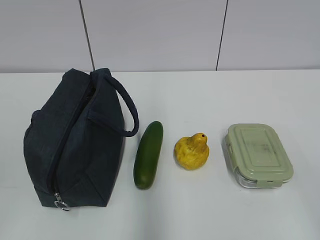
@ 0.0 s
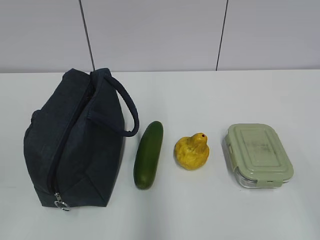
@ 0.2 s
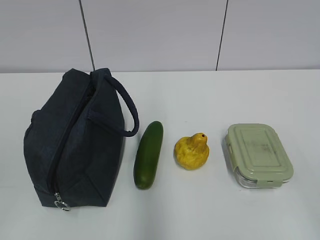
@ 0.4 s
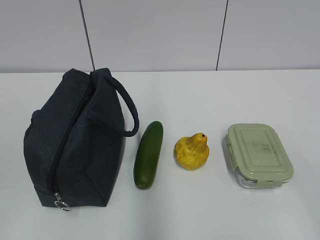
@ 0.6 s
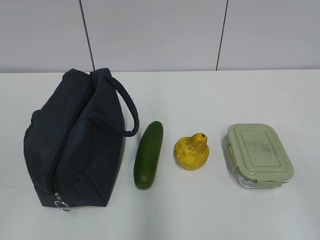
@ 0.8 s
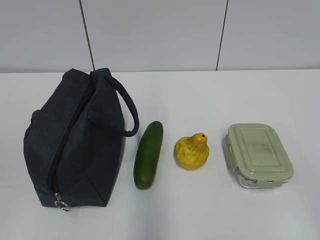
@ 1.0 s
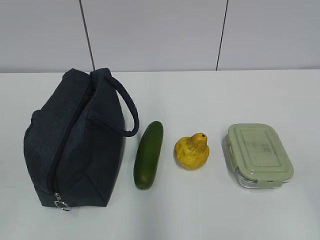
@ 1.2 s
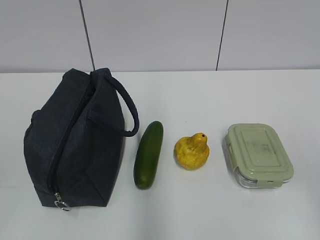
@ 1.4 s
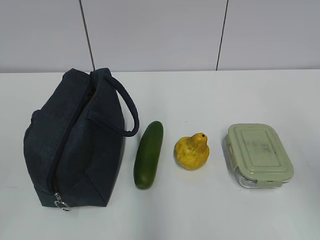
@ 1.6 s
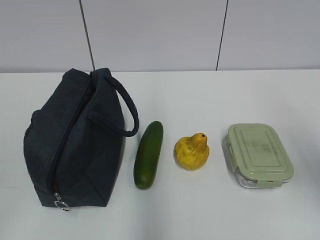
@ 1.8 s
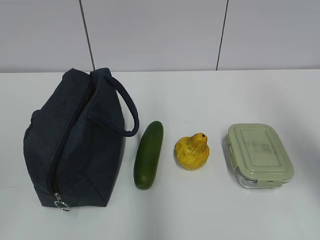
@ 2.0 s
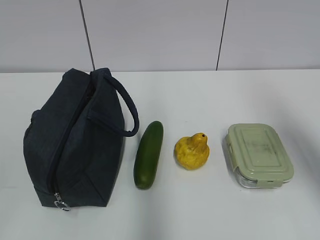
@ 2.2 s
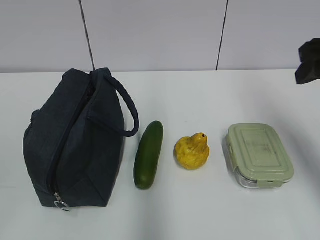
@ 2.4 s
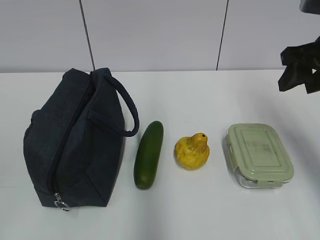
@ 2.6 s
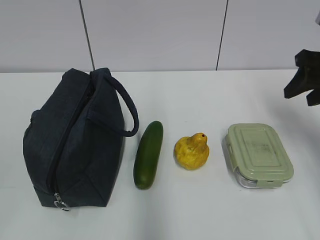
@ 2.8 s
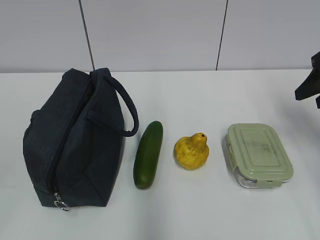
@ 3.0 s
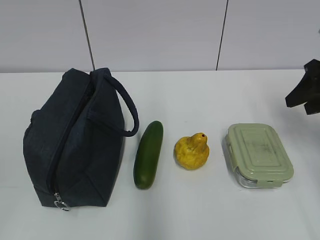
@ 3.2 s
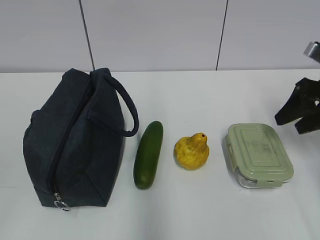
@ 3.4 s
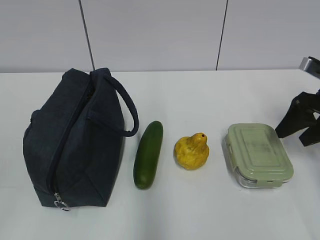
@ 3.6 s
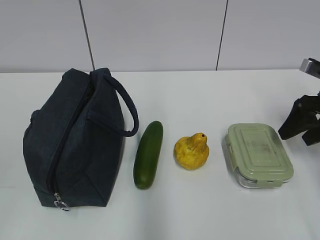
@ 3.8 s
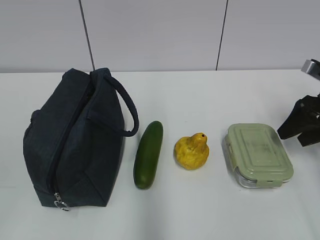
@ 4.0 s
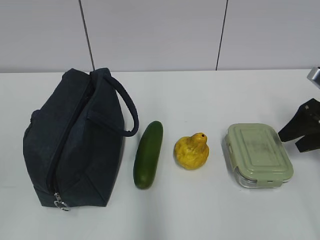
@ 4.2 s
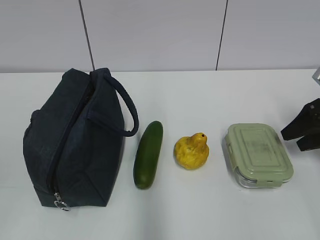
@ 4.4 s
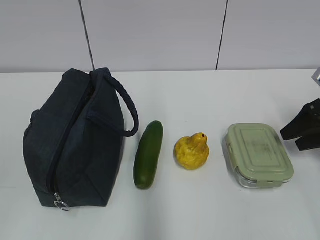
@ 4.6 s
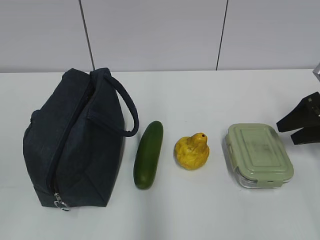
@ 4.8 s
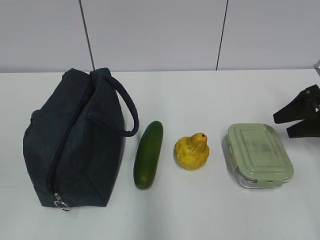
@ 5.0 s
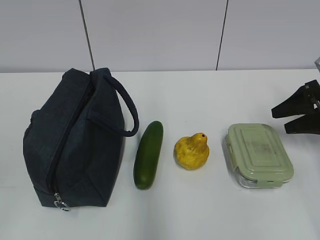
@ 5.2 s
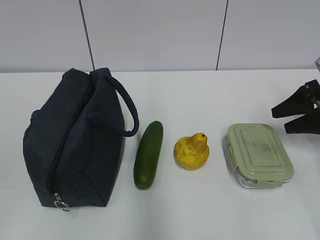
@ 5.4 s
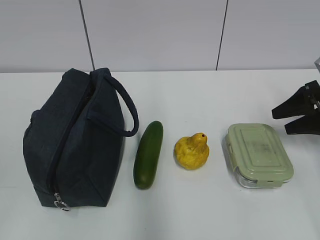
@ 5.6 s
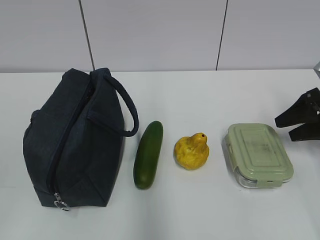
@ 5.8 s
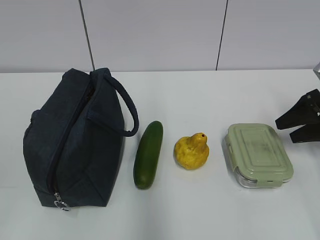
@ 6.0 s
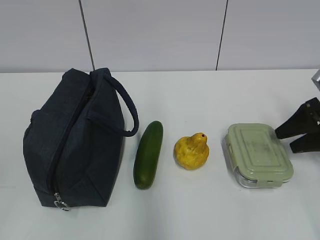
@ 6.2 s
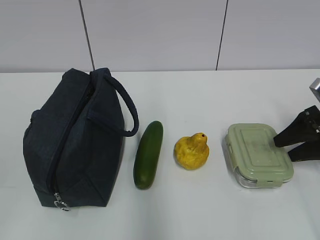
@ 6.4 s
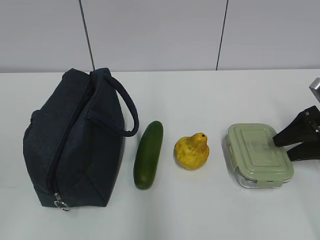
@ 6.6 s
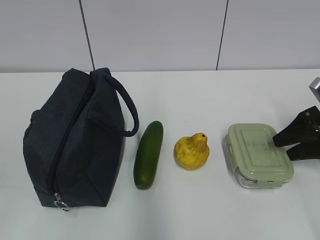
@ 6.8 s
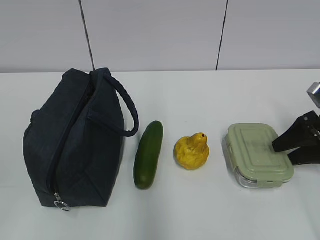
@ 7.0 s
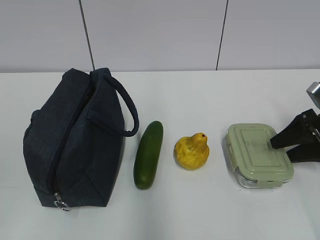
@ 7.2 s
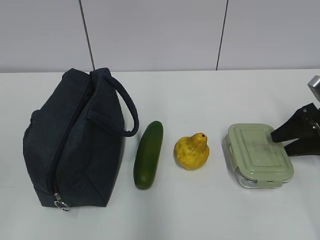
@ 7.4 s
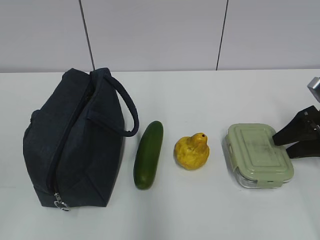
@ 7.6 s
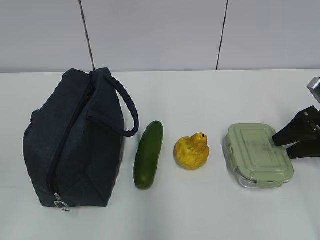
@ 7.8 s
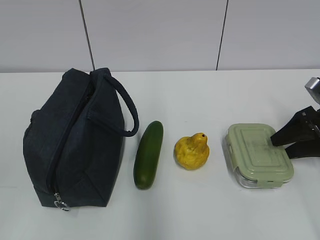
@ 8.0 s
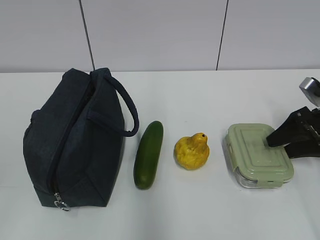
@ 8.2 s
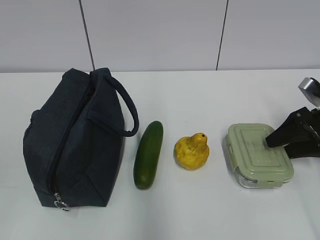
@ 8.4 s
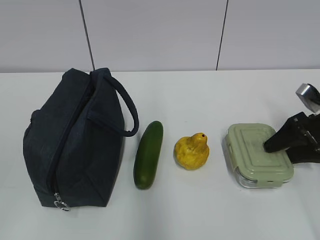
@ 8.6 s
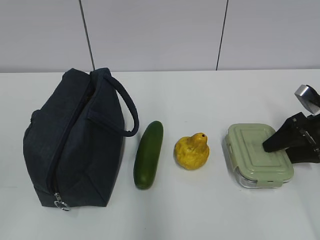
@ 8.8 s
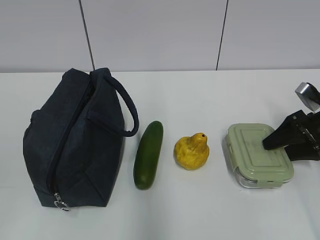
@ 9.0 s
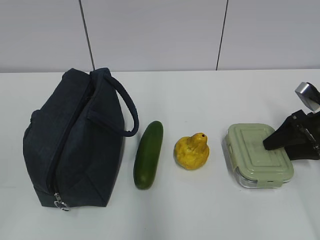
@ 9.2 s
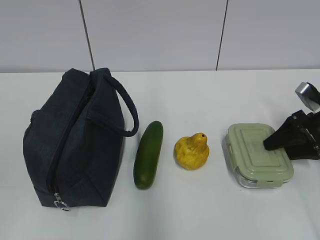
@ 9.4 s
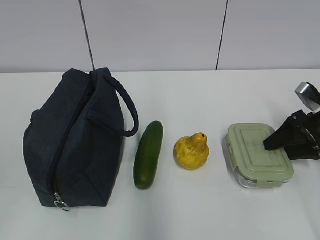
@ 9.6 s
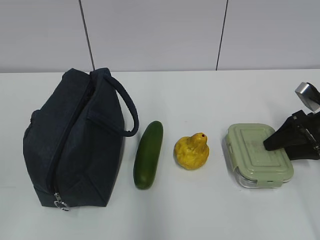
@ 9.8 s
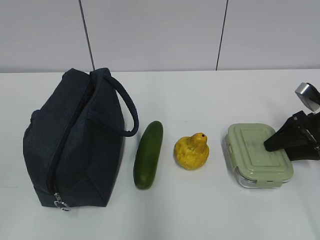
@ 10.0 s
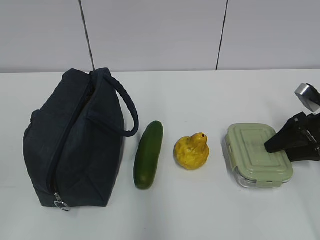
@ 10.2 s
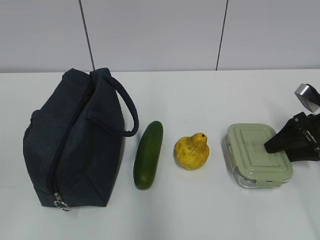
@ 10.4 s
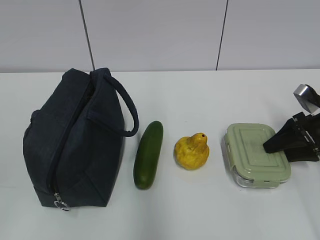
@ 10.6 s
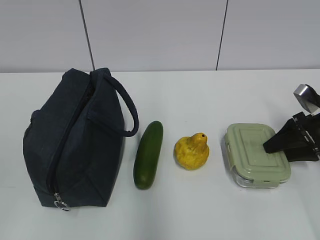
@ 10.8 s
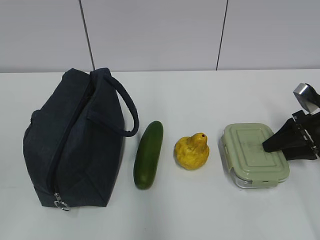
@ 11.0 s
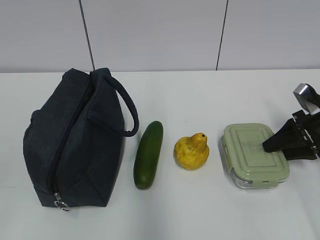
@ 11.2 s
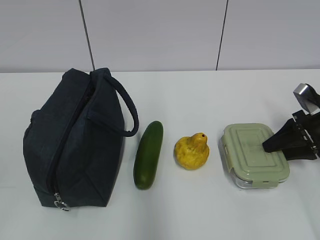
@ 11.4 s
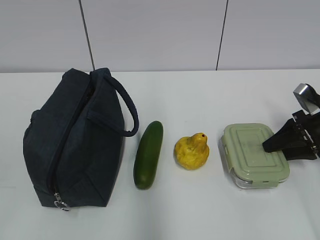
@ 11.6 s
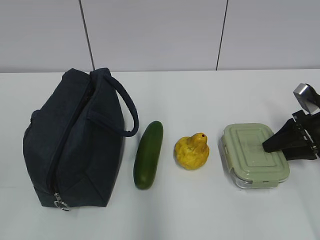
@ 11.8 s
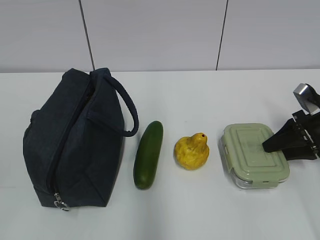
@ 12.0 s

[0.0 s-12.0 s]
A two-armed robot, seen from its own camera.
1.6 to 3.0 s: The right gripper shifts approximately 25 cm forward.
3.0 to 4.4 s: The right gripper travels downward by approximately 10 cm.
4.4 to 9.0 s: The grippers stay close to where they were, moving slightly.
9.0 to 12.0 s: Neither gripper changes place.

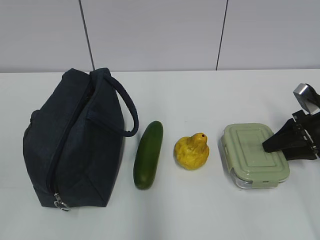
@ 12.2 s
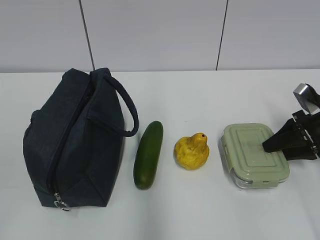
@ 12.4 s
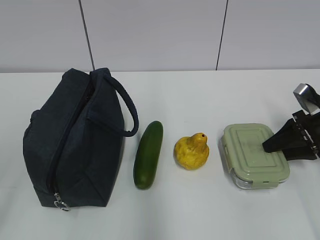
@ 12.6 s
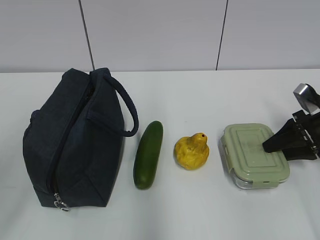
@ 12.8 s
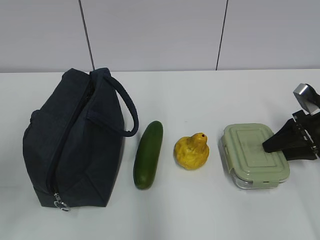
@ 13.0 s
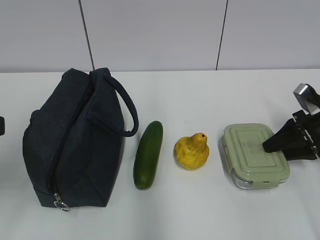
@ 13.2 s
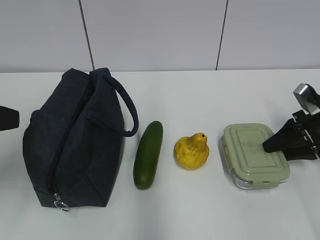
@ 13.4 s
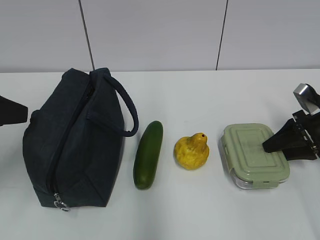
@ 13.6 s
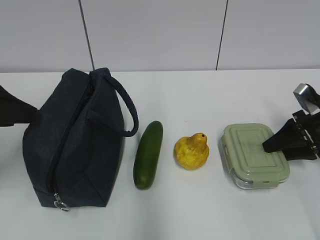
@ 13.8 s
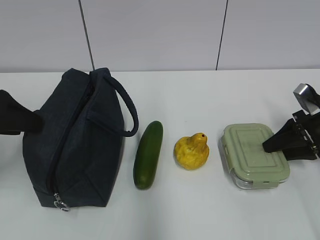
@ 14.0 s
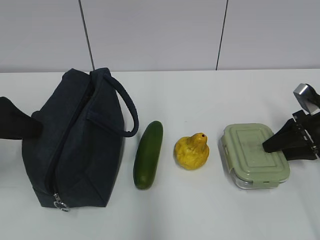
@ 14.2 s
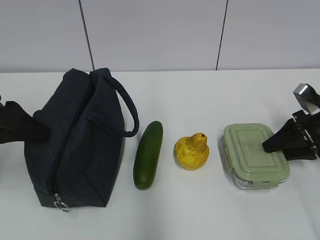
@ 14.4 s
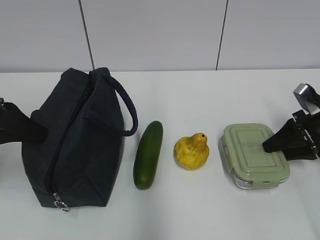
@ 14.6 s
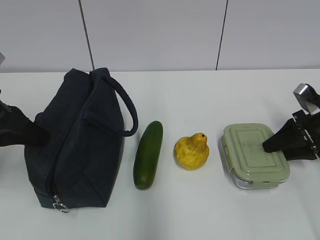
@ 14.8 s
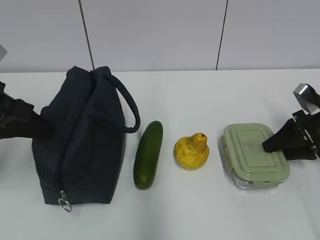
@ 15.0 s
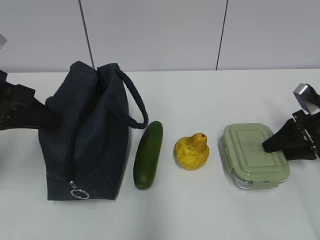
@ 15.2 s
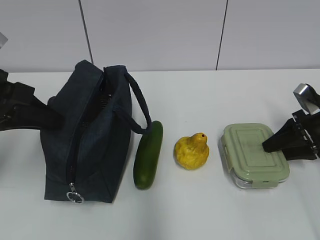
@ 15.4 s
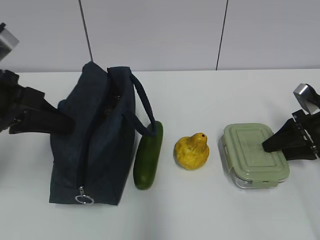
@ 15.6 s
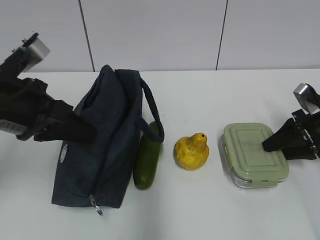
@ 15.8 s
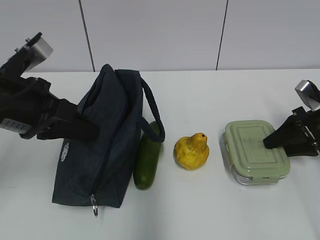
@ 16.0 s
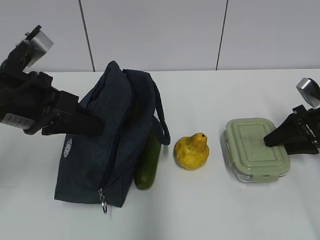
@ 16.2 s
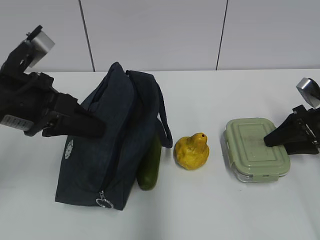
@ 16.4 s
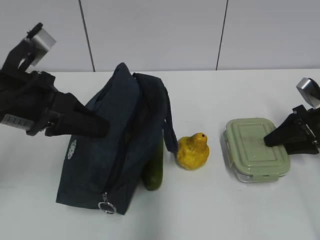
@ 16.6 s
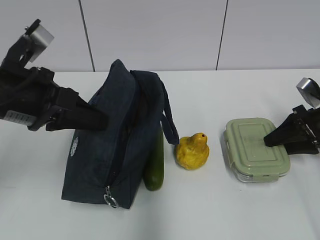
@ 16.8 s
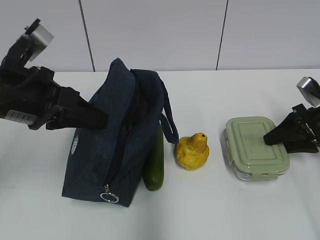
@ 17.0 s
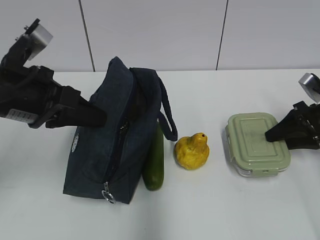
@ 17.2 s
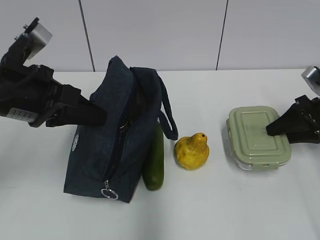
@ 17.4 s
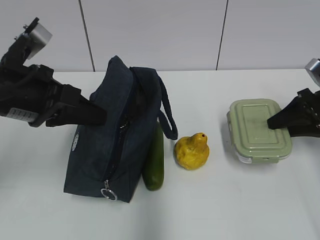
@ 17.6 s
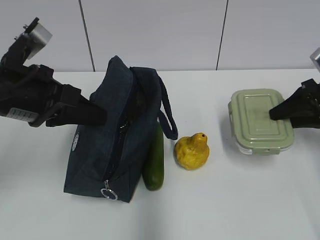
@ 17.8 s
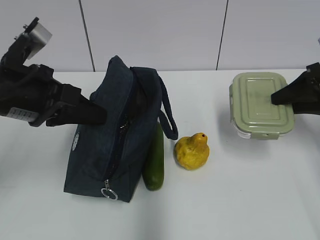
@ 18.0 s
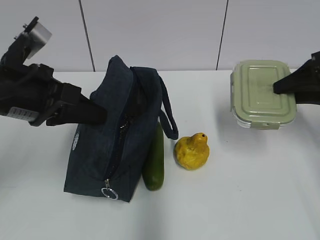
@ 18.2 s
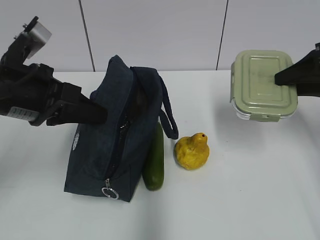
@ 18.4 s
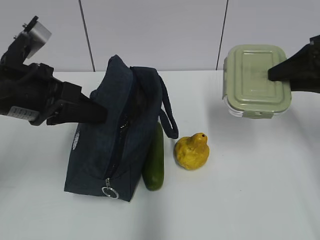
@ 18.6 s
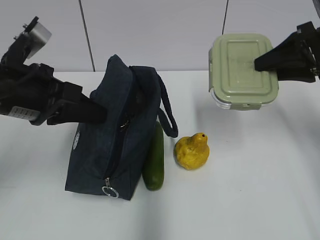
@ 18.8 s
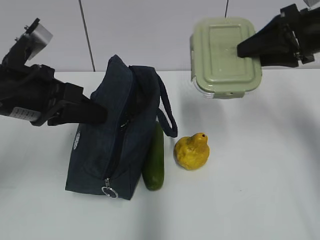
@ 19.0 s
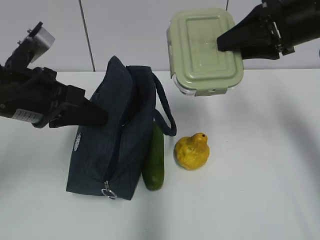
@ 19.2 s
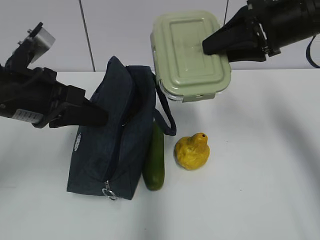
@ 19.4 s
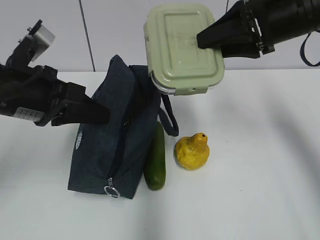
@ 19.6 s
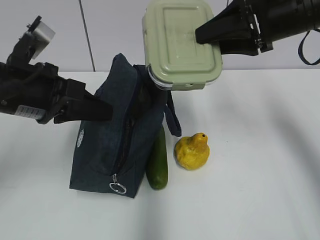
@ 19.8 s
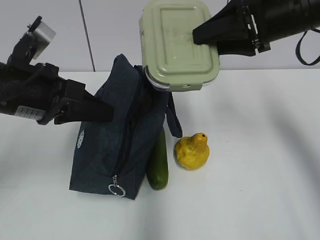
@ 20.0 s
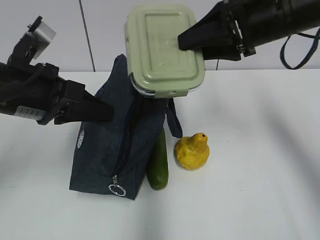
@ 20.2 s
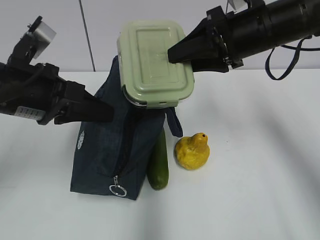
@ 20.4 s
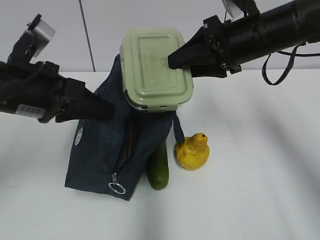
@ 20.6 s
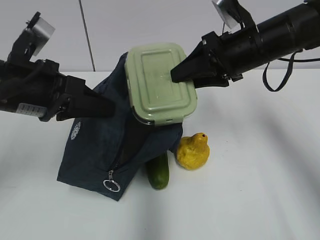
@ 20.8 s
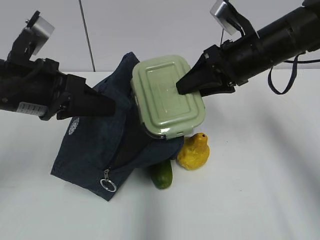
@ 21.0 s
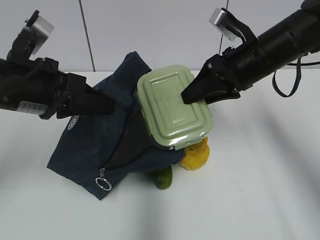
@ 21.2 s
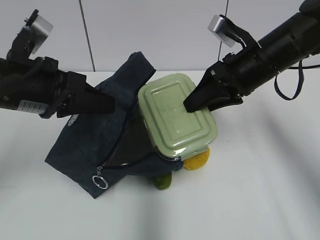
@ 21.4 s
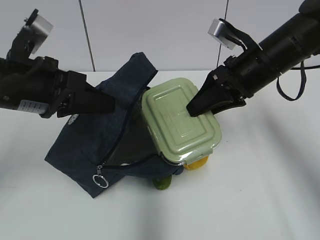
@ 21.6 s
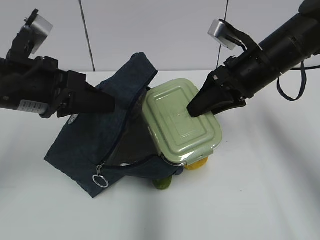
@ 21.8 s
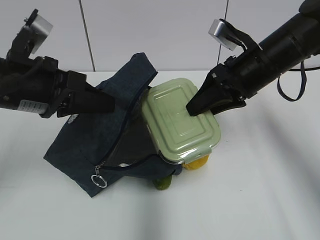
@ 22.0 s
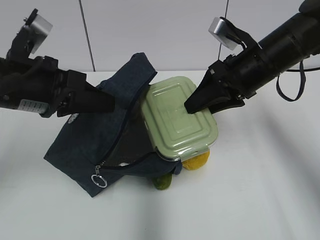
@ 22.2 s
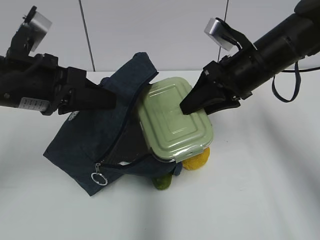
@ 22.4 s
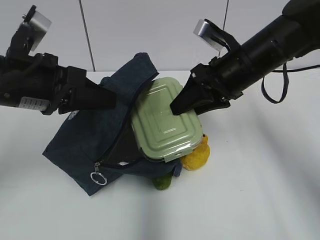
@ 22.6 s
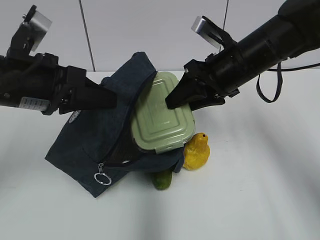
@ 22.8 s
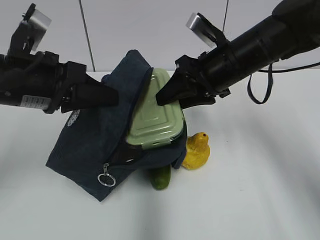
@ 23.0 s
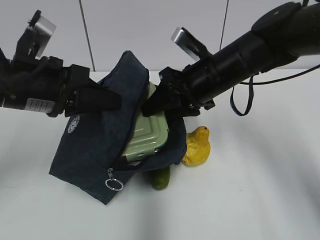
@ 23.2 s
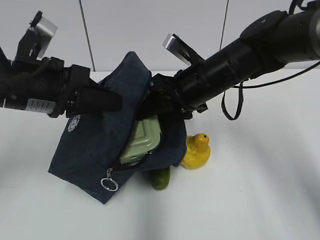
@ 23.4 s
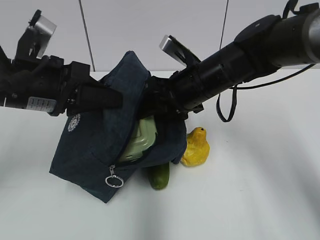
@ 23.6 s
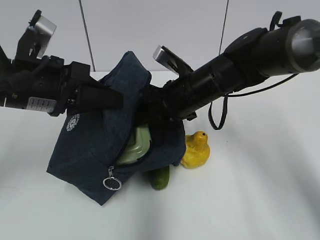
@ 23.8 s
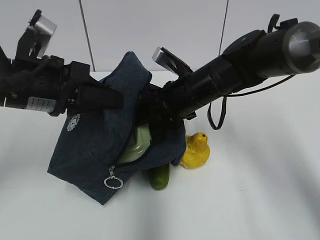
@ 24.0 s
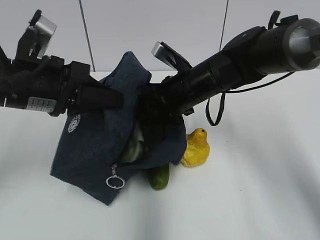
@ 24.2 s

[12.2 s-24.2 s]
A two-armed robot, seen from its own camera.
Step, 12.2 to 14.6 s: Grab the lunch bag with your left hand.
12.2 to 13.8 s: The left gripper heads forward, covering about 25 cm.
13.8 to 15.2 s: The left gripper closes.
15.2 to 16.6 s: The left gripper moves to the right, some 5 cm.
16.6 to 18.2 s: The right gripper shifts about 10 cm upward.
18.2 to 19.8 s: The right gripper moves to the left and upward, about 15 cm.
19.8 to 21.2 s: The right gripper moves downward, some 5 cm.
21.2 to 22.6 s: The grippers move only a little.
22.6 to 24.2 s: The right gripper shifts some 10 cm to the left and downward.
